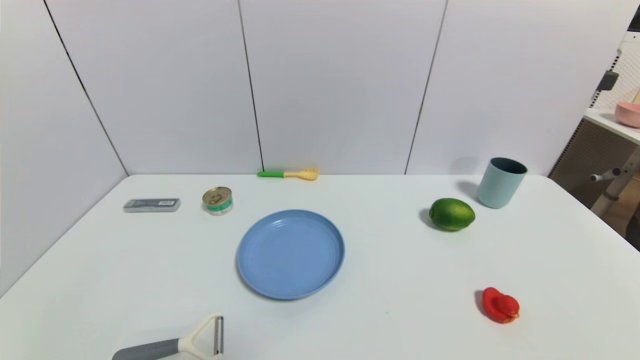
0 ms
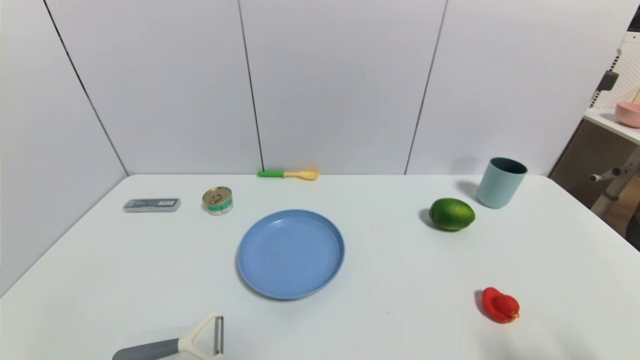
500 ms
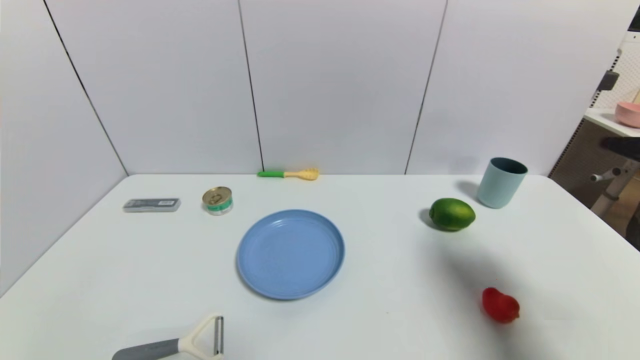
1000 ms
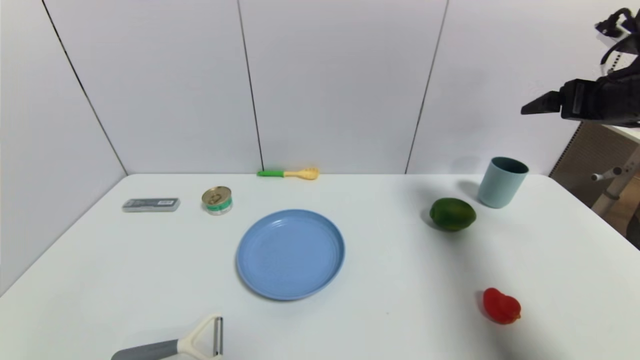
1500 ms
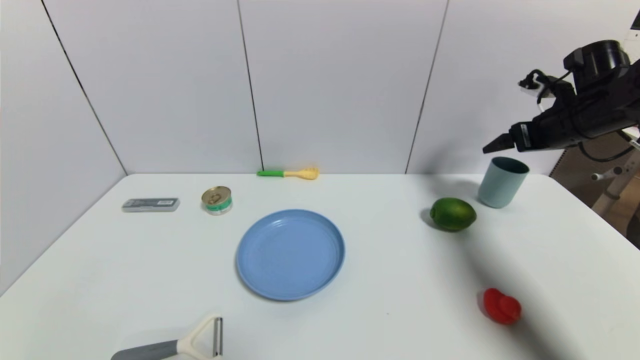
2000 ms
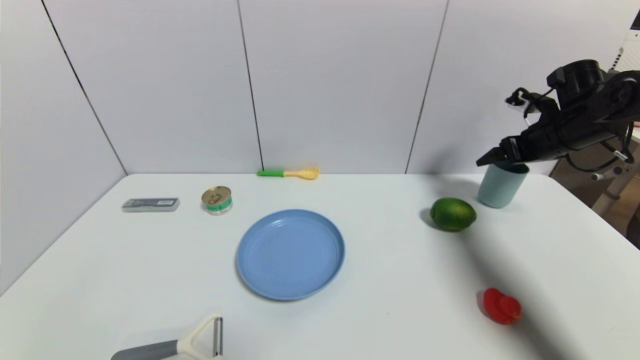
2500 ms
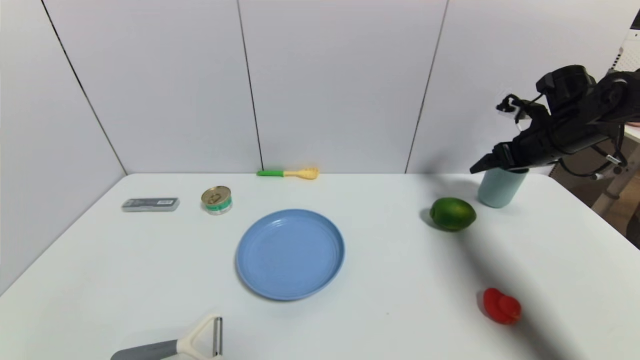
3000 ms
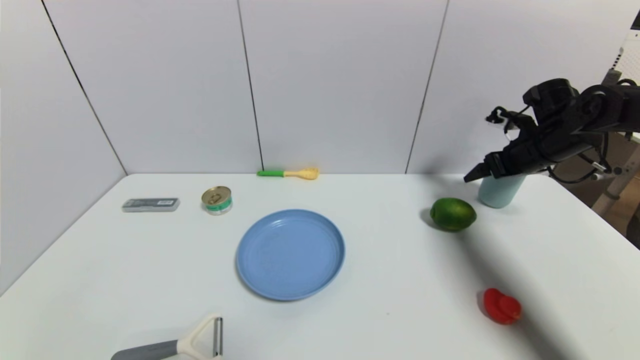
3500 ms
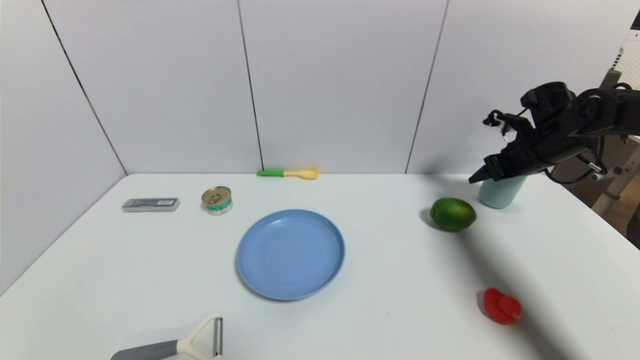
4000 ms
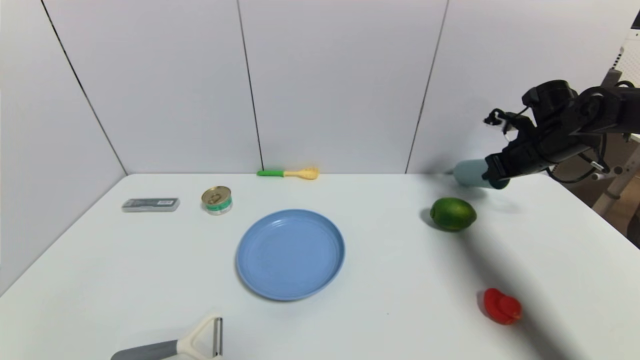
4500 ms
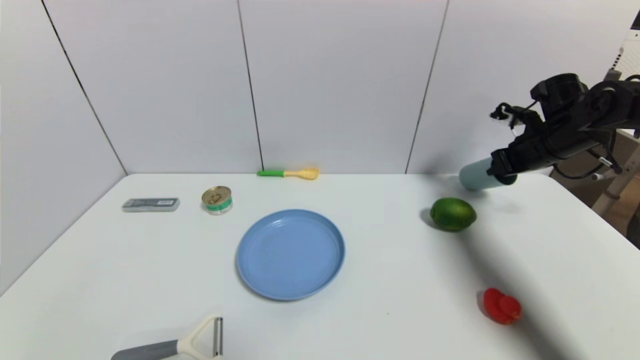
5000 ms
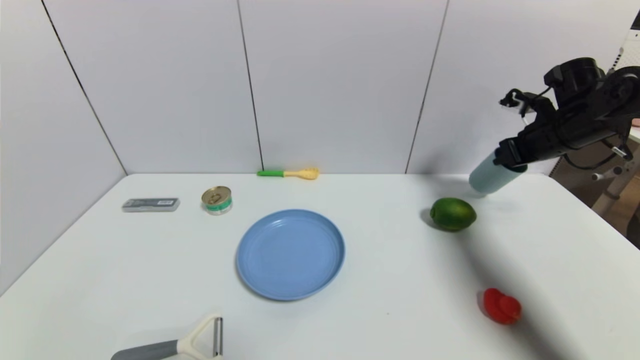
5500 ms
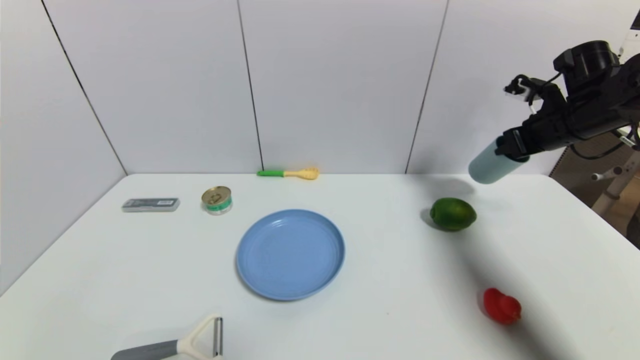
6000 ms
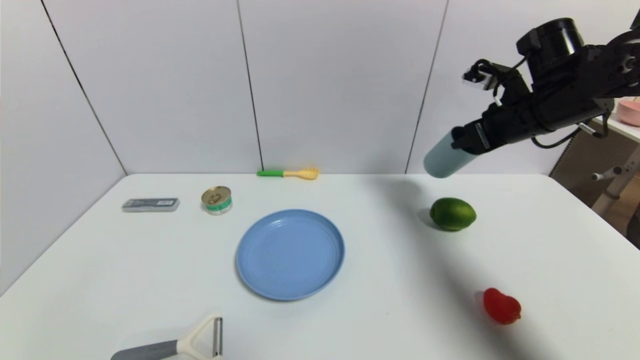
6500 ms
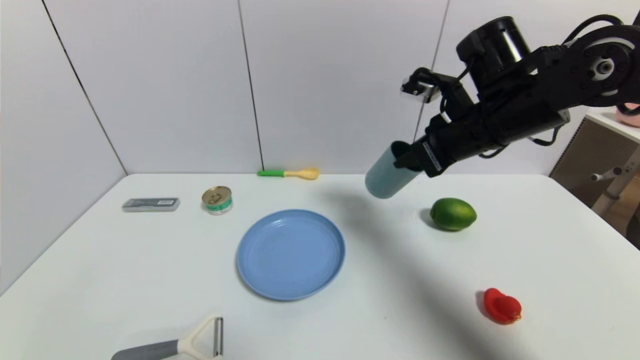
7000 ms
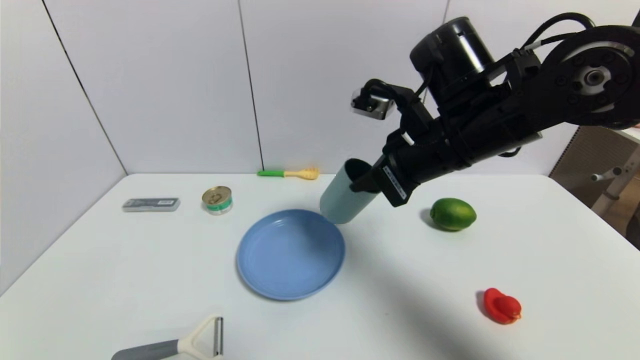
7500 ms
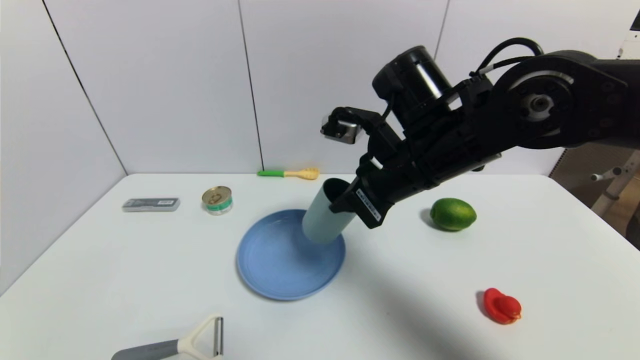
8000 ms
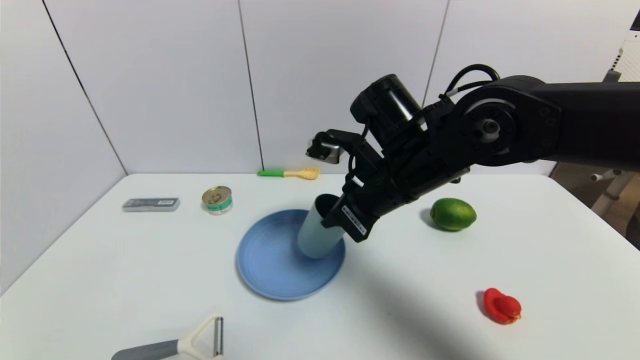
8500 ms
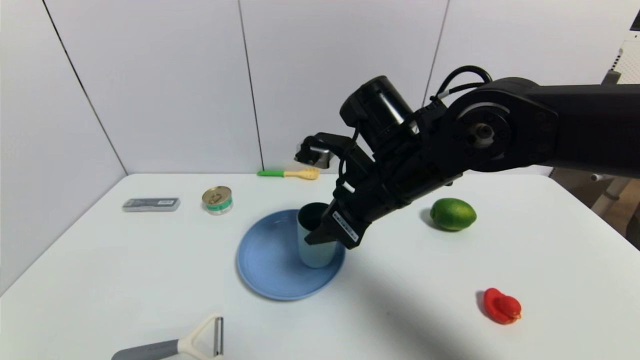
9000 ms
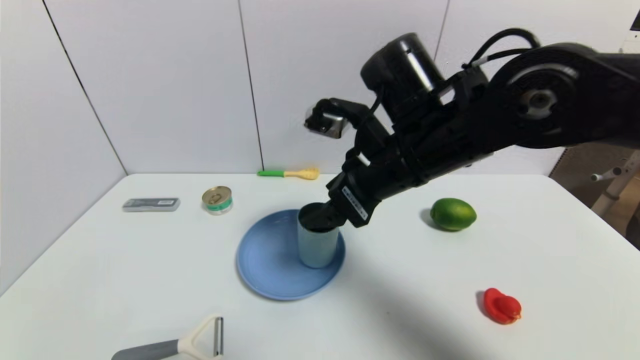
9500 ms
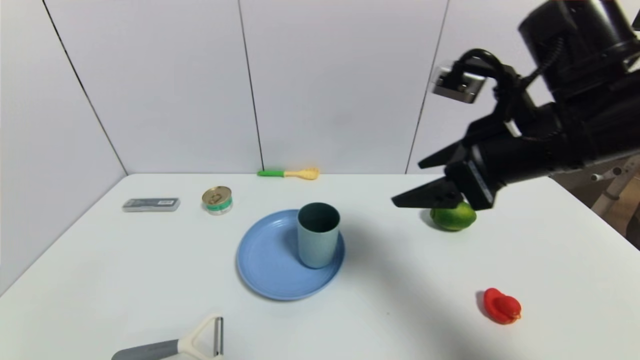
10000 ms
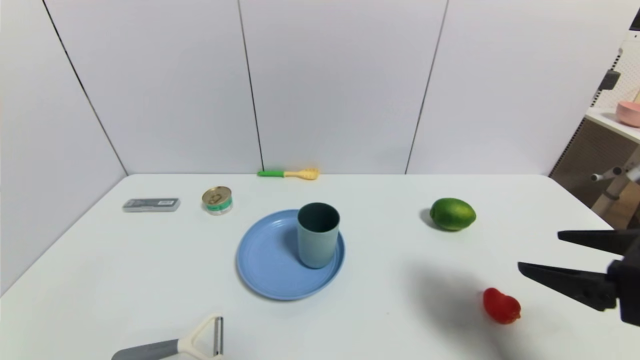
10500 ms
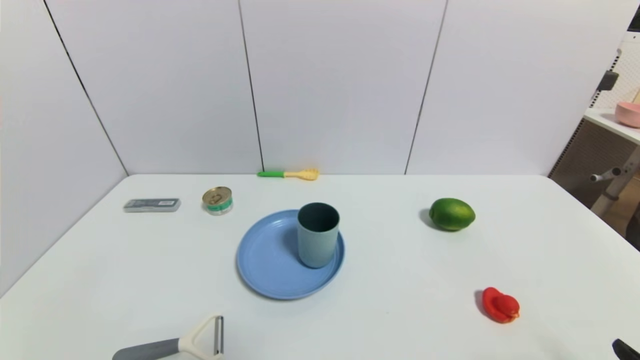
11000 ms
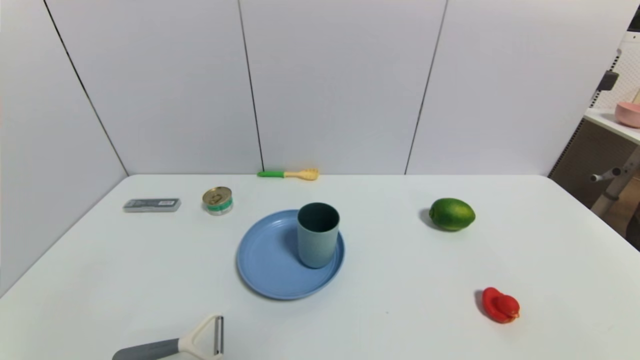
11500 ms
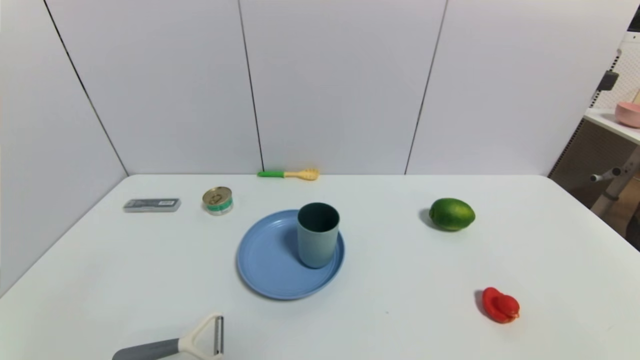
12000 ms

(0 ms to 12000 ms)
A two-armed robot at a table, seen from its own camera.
Task of the whole recording: use a gripper to pick the target object and place on the blue plate.
Step, 0 ms - 4500 ms: Grasp the blue cup with the right gripper.
Step, 5000 ms - 10000 ms: Place the blue cup on the blue plate with the right gripper.
0 ms - 2000 ms: The right gripper shifts about 50 cm forward and upward.
2000 ms - 4000 ms: The right gripper goes about 5 cm downward.
4000 ms - 6000 ms: The right gripper moves upward, some 5 cm, and closes.
6000 ms - 8000 ms: The right gripper travels to the left and backward by roughly 30 cm.
8000 ms - 10000 ms: The right gripper moves to the right, some 10 cm, and opens its fingers.
10000 ms - 12000 ms: The right gripper moves backward, downward and to the right, about 35 cm.
